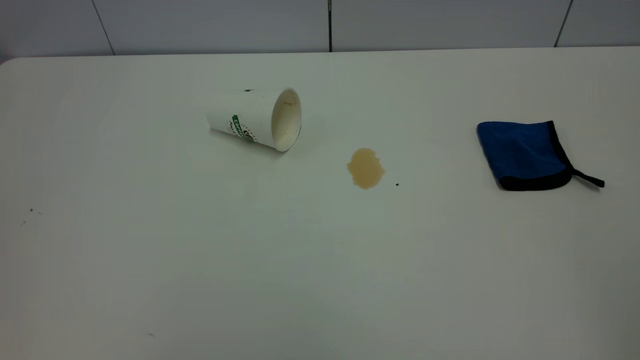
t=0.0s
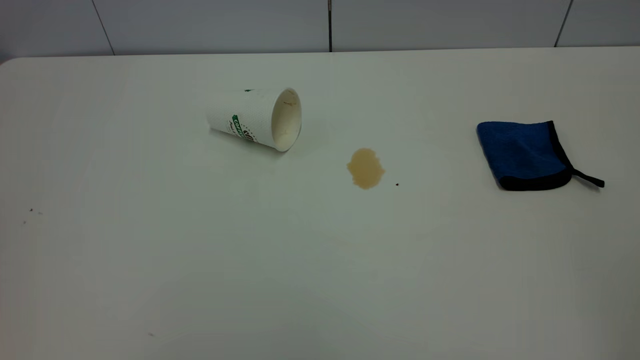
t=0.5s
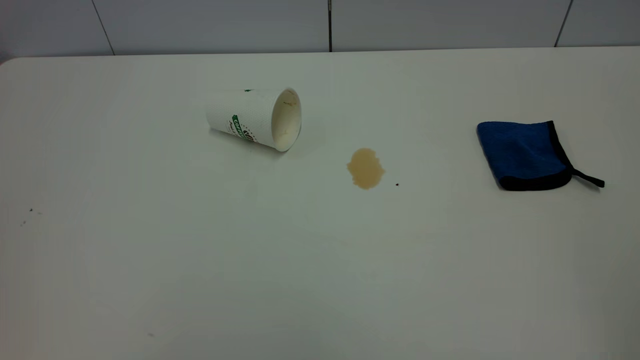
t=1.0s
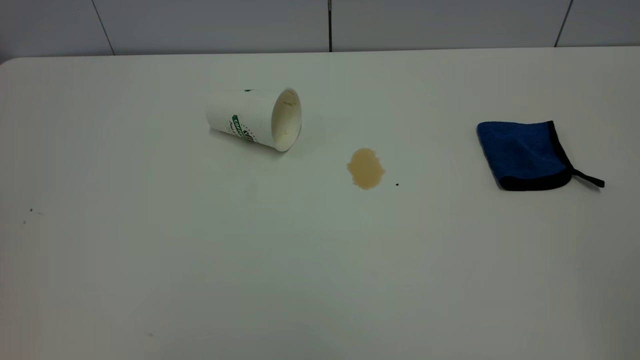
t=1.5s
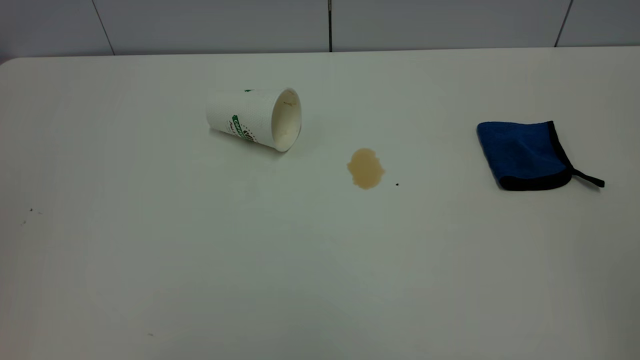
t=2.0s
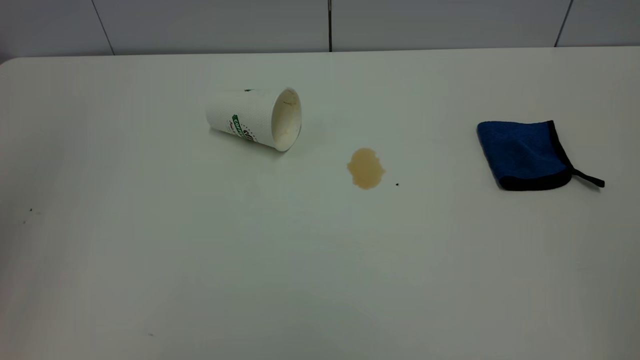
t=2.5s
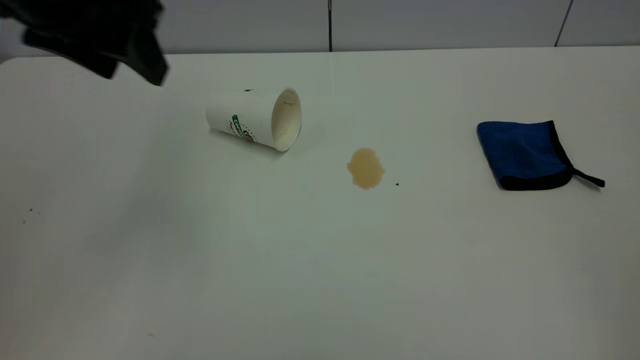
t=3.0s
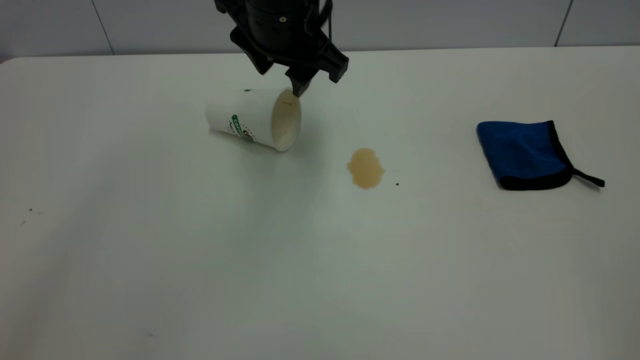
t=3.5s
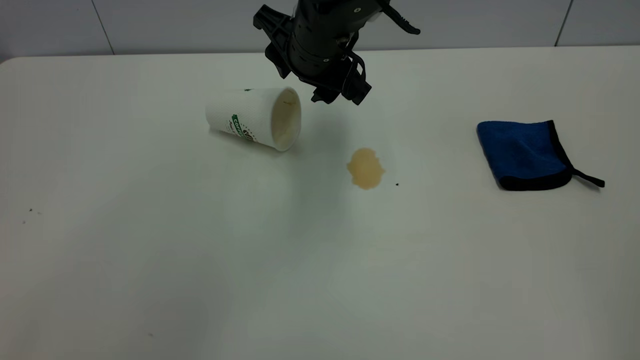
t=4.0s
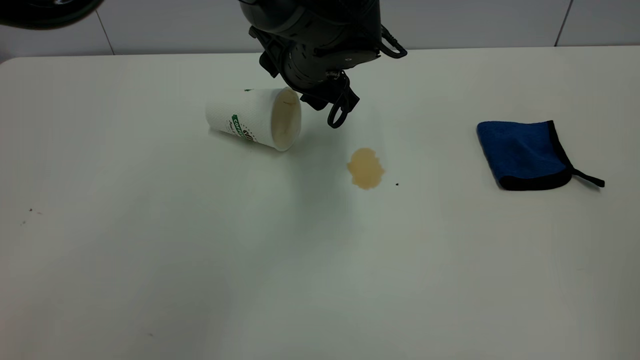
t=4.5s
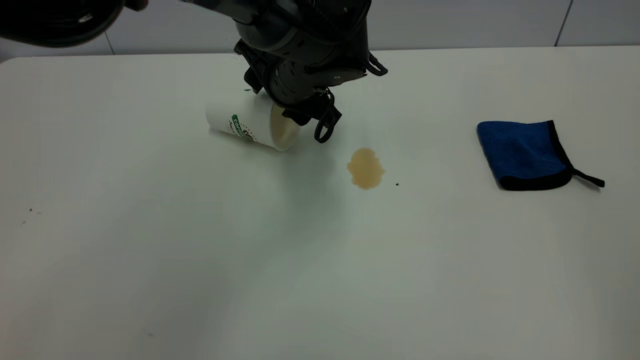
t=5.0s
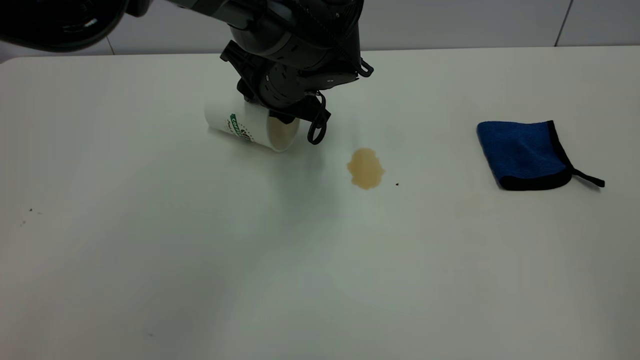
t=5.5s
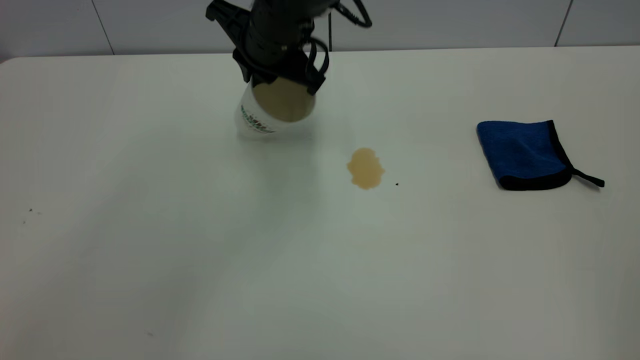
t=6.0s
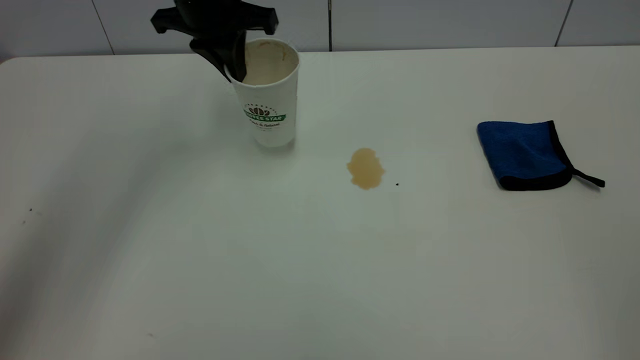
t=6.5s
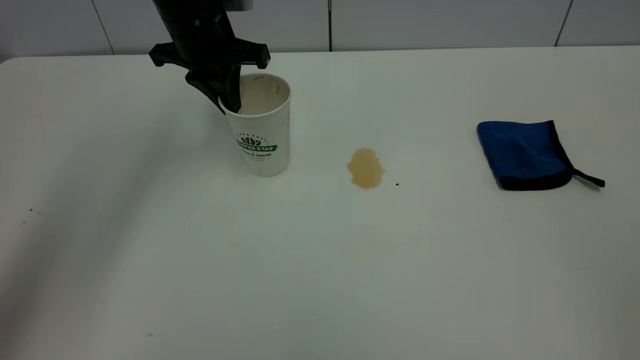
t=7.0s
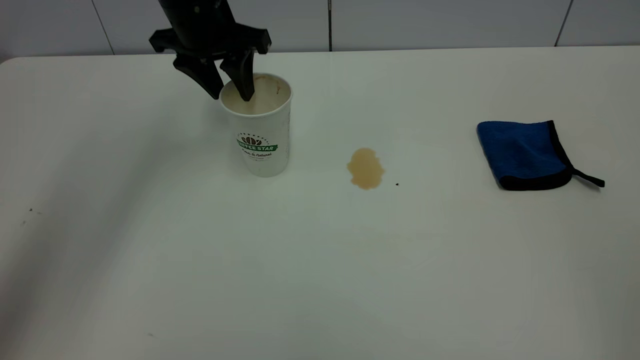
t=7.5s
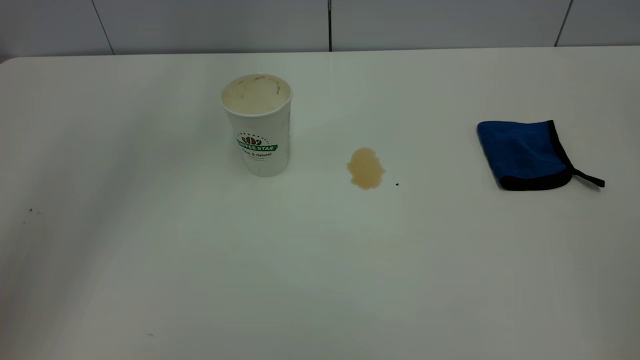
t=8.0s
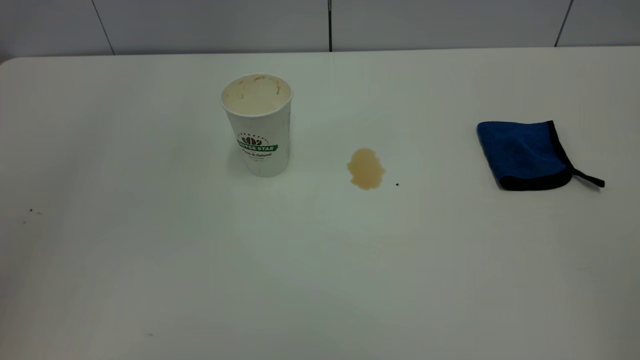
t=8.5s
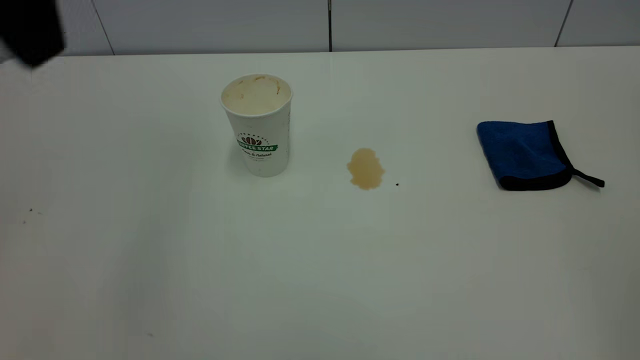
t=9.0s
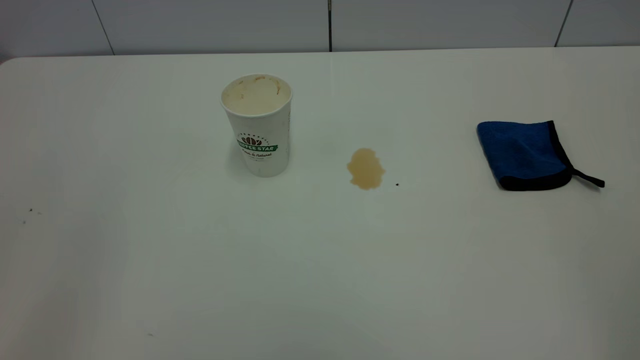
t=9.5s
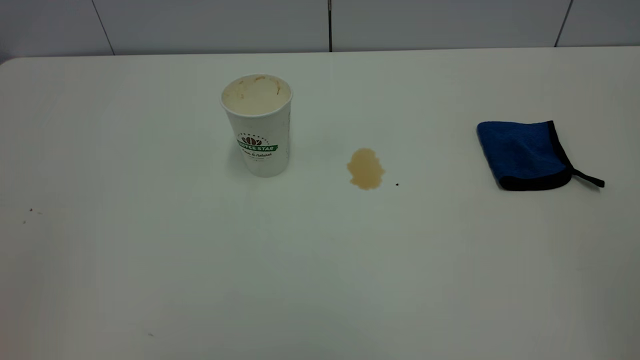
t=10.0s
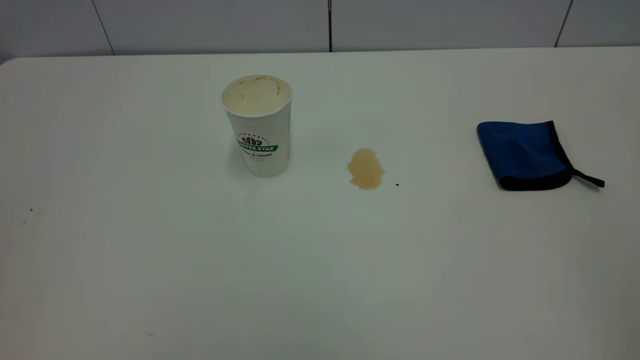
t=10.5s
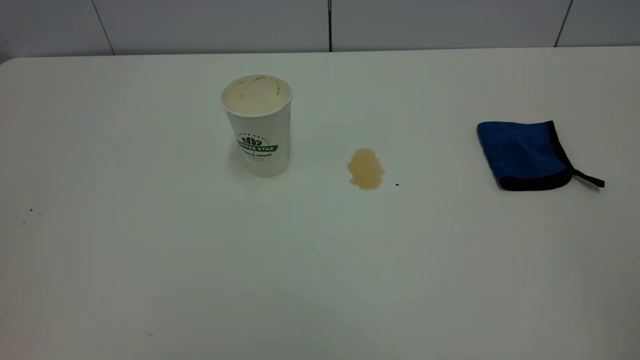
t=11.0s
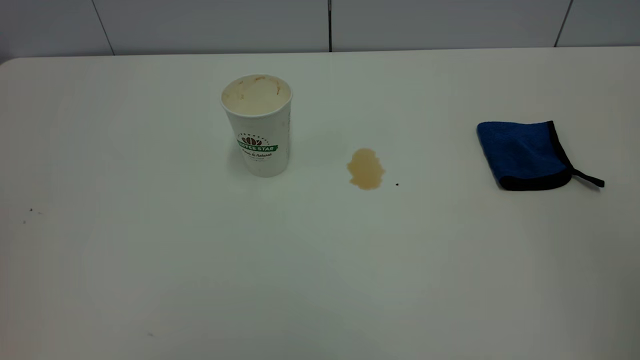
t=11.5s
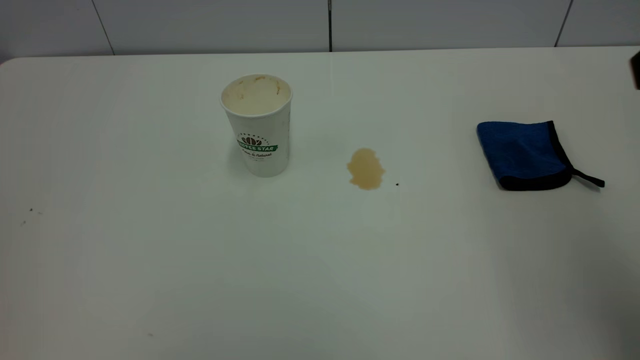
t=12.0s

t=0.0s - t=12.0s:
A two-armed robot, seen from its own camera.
Task of the whole recording: the left gripper pick up the fallen cup and place it upright, the right gripper grasp the blue rag and wipe the tea stain on the table, the right gripper put the blue rag back in its original position.
Step, t=0.0s - t=7.5s: Stand the paper cup upright.
t=2.0s - t=4.0s: The left gripper travels forward, to the right and downward by approximately 50 cm.
t=4.0s - t=6.0s: The left gripper reaches some 5 cm downward, then returns, and closes.
t=6.0s - t=8.0s: The left gripper travels upward and to the left by about 20 cm, and opens up.
t=10.0s - t=12.0s: The right gripper is displaced forward by roughly 20 cm.

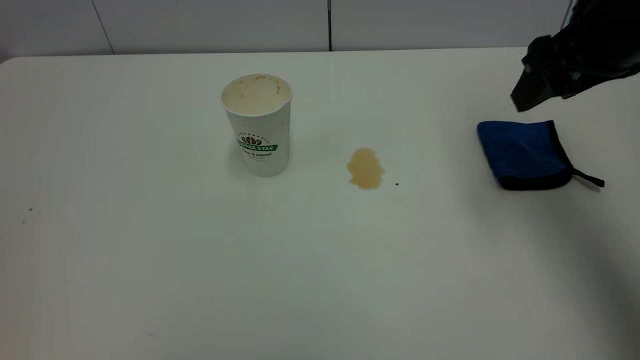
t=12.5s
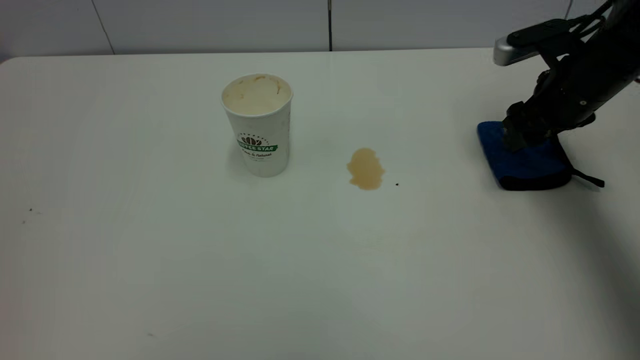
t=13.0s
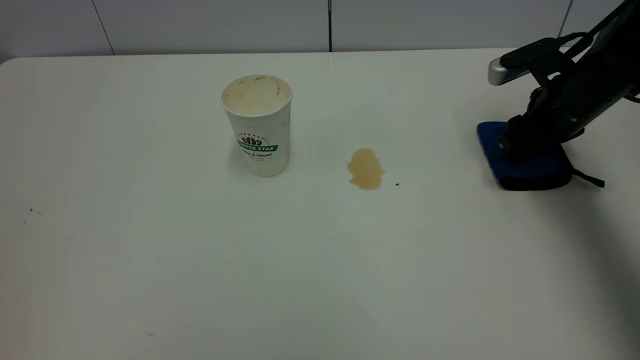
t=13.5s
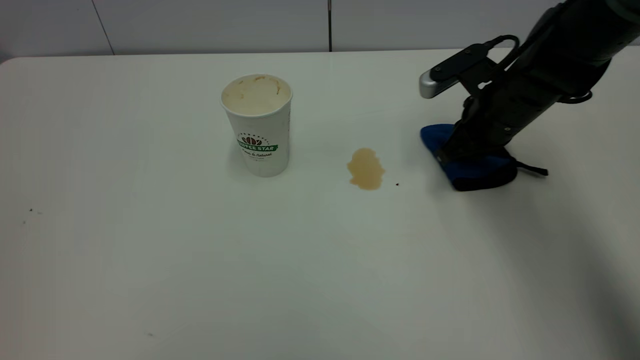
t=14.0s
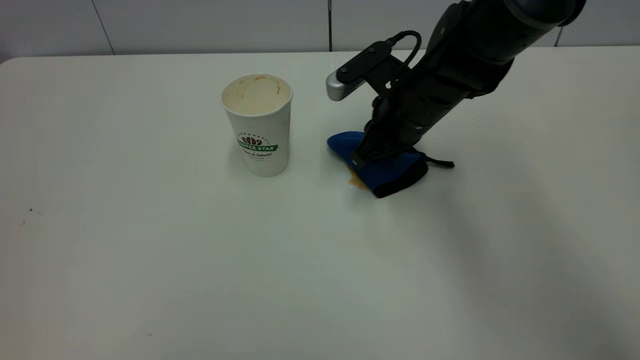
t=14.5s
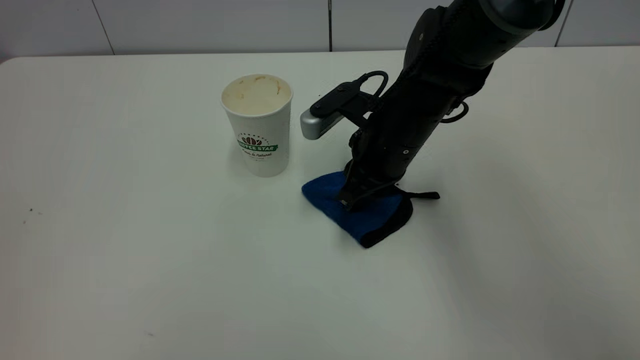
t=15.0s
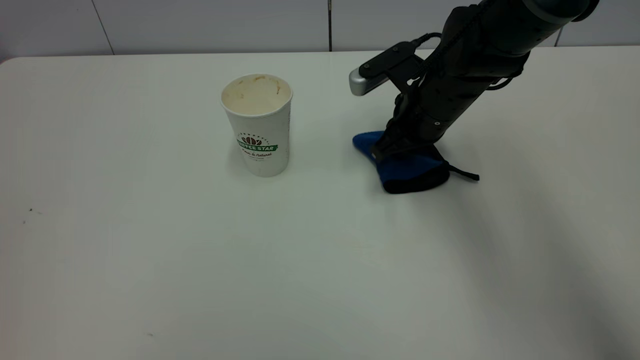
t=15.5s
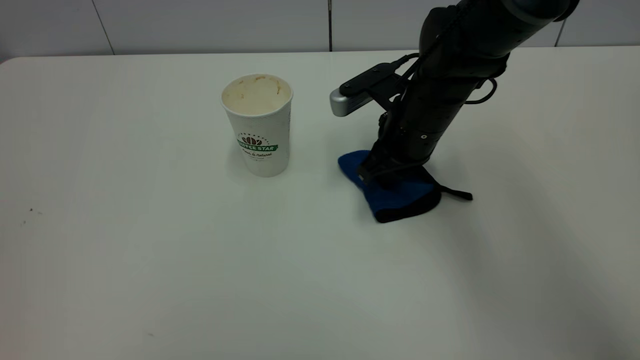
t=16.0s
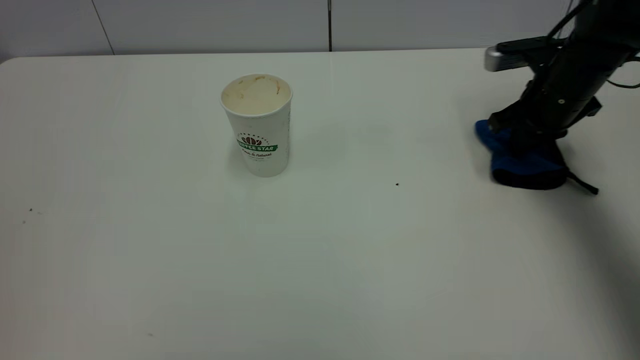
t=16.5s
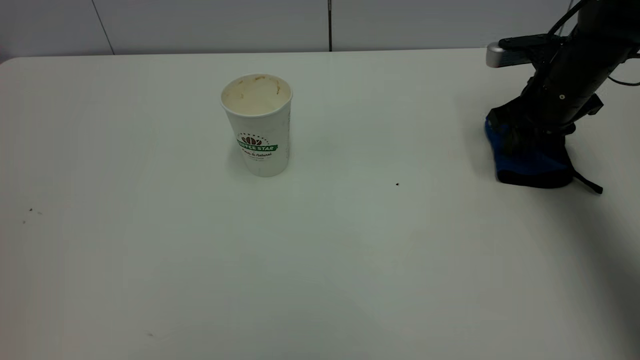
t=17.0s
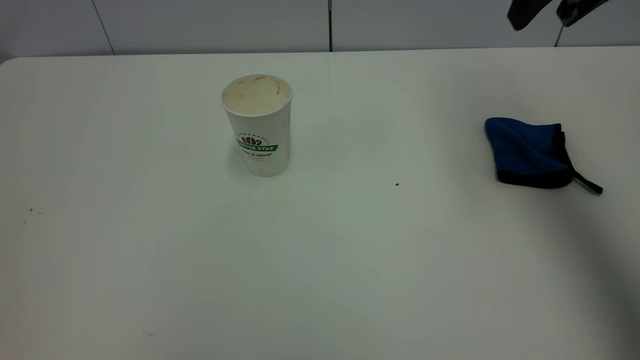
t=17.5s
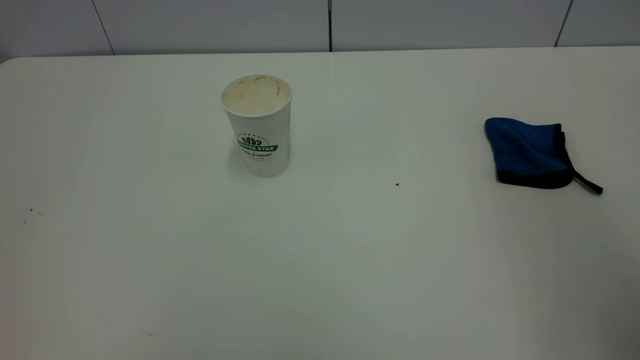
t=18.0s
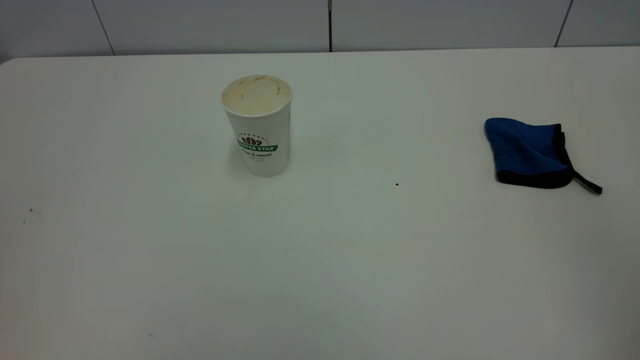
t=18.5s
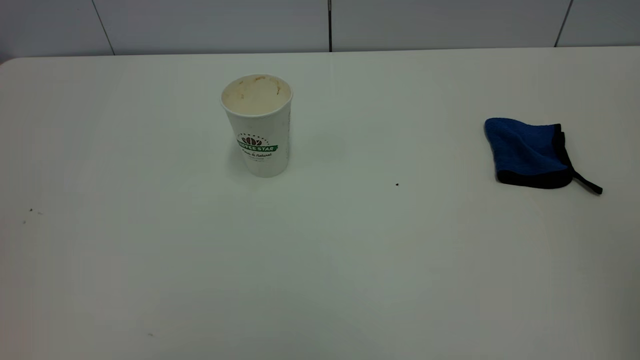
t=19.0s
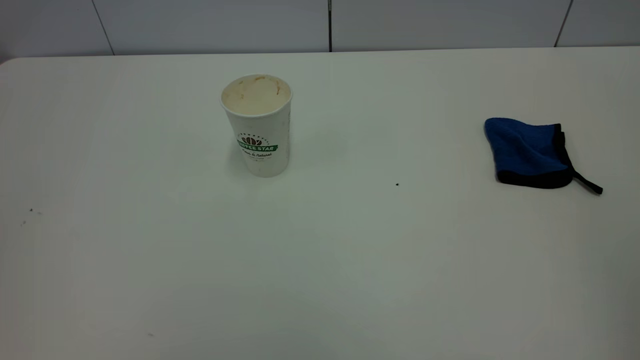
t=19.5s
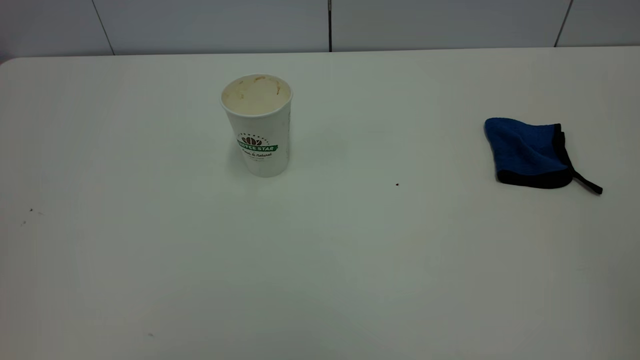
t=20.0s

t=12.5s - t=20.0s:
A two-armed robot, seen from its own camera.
Task of the whole recording: the left gripper pick up the fallen cup and place it upright, the right gripper grasp the blue rag and wipe the tea stain on the table, the right gripper put the blue rag back in its original position.
Step, t=12.5s - t=17.0s: Wipe the stains off the table with a rag.
t=12.5s - t=14.5s: The right gripper travels to the left, downward and forward by about 20 cm, and closes up.
t=14.5s - t=16.5s: The right gripper goes approximately 20 cm to the right.
t=16.5s - t=18.0s: The right gripper heads backward and upward, covering about 35 cm, and opens its fingers.
